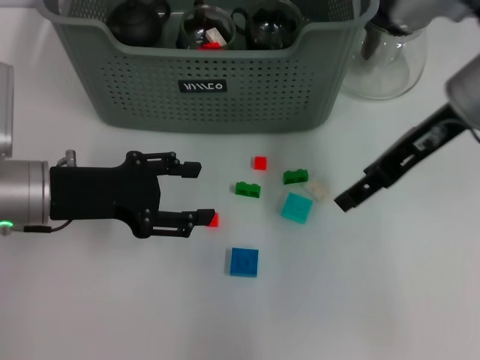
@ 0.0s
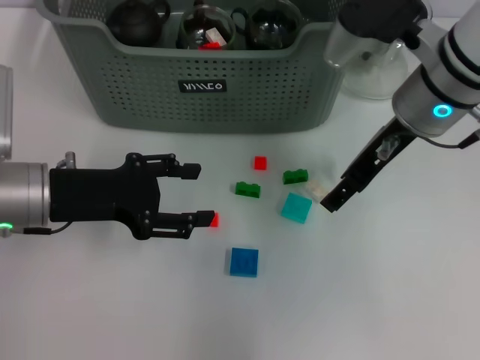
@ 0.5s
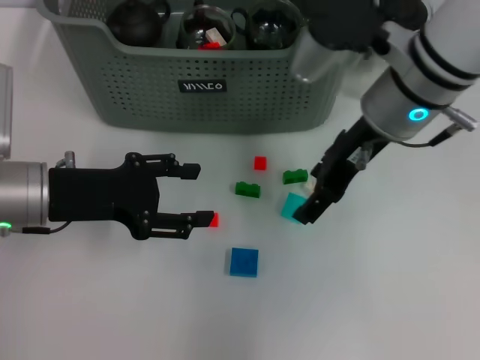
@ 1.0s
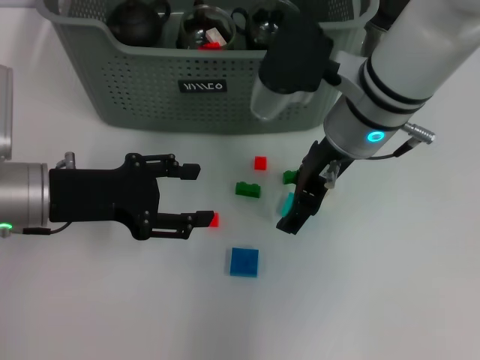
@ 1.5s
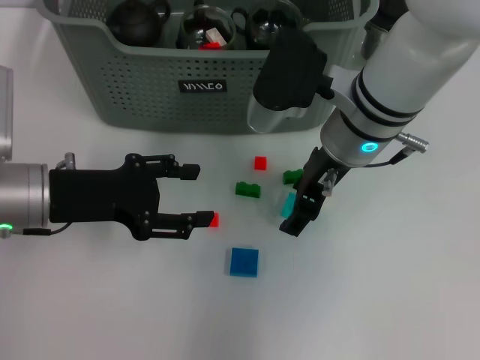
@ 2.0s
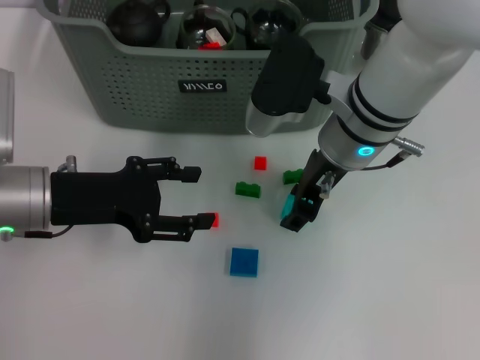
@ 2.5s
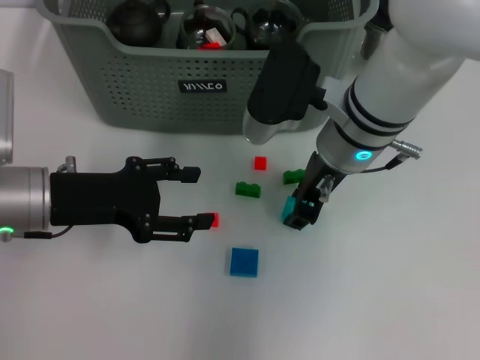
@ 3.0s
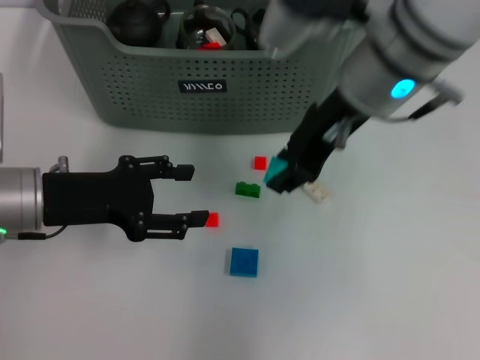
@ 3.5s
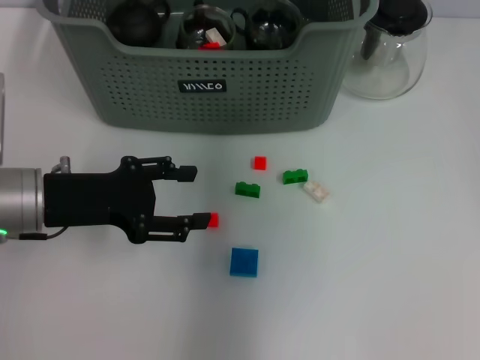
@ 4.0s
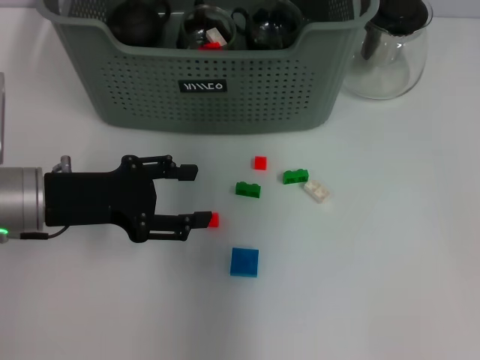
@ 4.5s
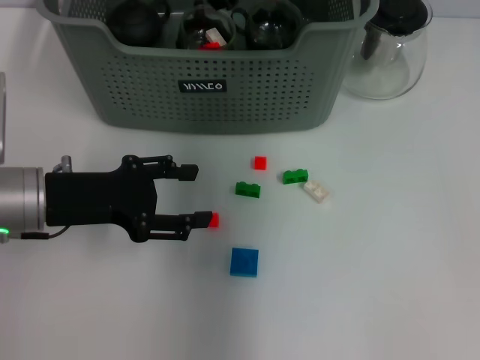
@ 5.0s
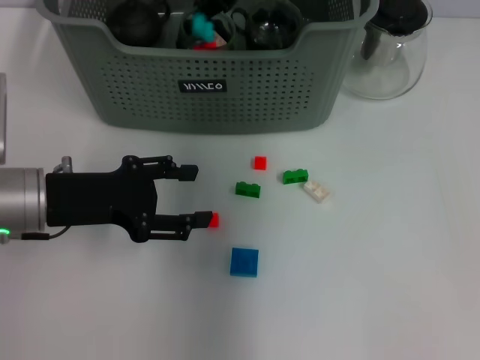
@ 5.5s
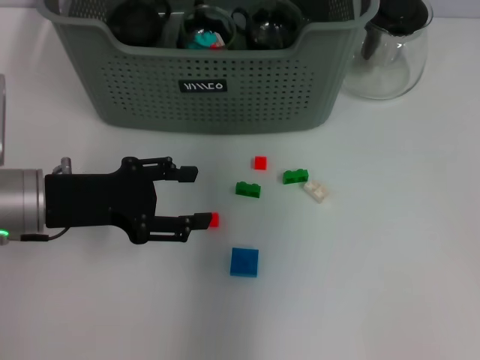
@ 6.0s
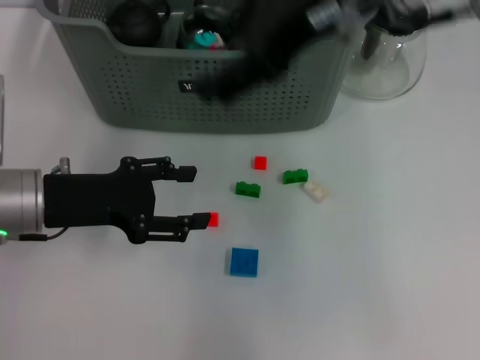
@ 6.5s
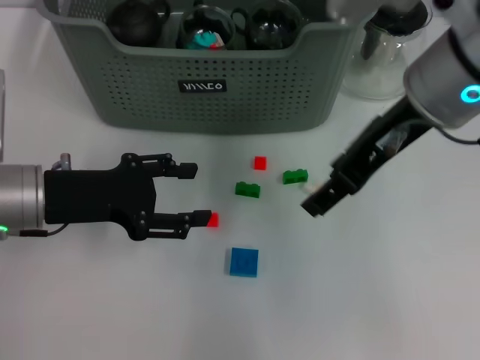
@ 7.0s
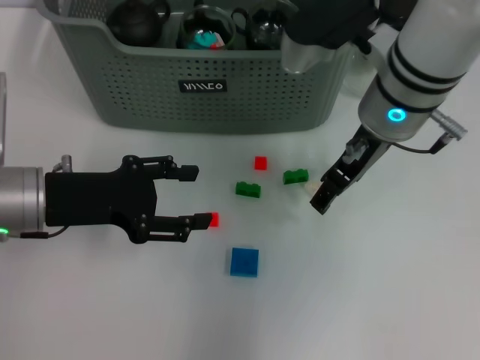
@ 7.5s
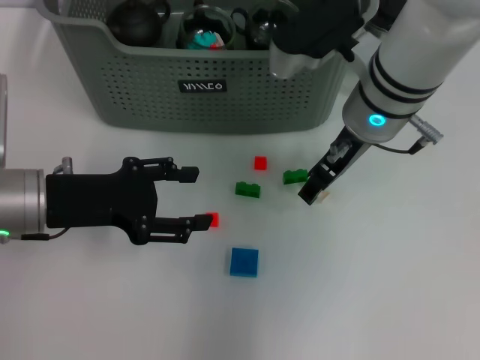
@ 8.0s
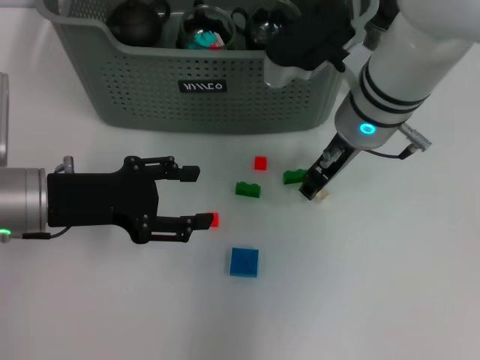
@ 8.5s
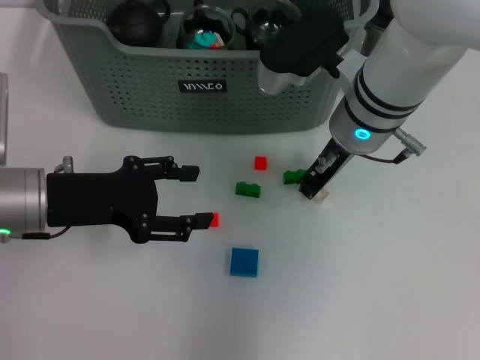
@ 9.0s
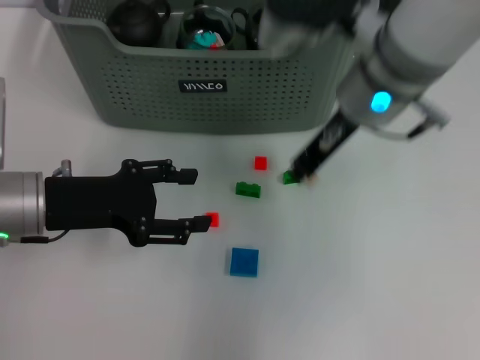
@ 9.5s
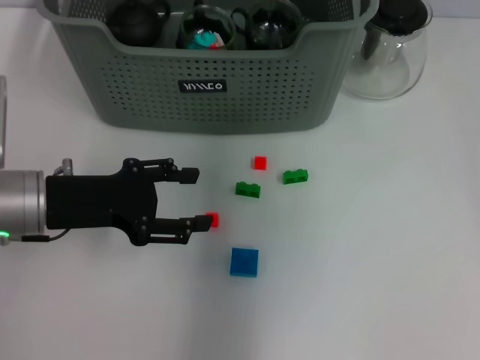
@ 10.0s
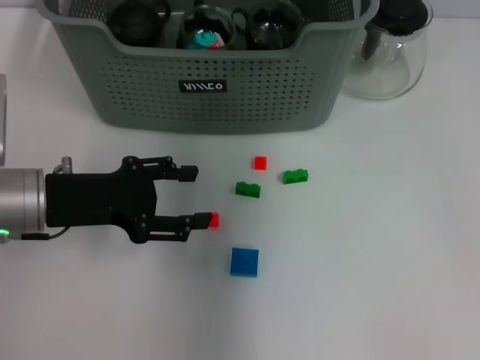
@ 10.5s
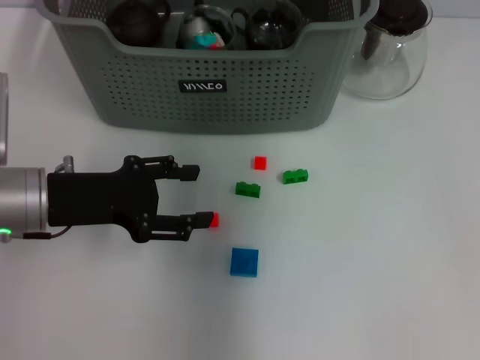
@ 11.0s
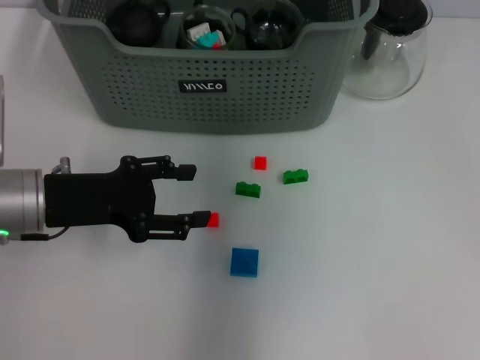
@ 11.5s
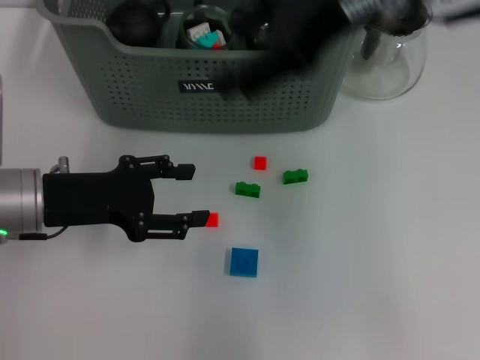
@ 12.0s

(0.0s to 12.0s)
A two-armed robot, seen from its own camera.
Task of the whole recording: pick up the teacup on the table and place it into the storage bin, pick up the block on the table and place it into the storage bin.
Step, 0.0s - 2.5s: Grasp the light blue block with right gripper.
Step, 3.5s - 5.5s: Place the light blue block in the storage box with right gripper.
Step, 6.0s - 9.0s: Grasp the white block with right gripper.
Step, 9.5s - 11.0s: Place the white block in the storage box with right gripper.
0.0s - 2.0s: The right gripper goes roughly 10 cm to the left and downward.
2.0s - 4.0s: The right gripper goes some 20 cm upward, and closes up.
6.0s - 8.0s: The right gripper travels downward, backward and to the right by roughly 15 cm.
8.0s - 10.0s: The right gripper moves upward, approximately 20 cm, and closes its fingers.
10.0s - 12.0s: The right gripper moves backward and to the right, approximately 10 cm, and opens its fingers.

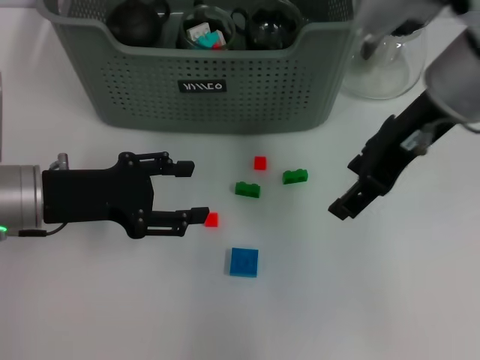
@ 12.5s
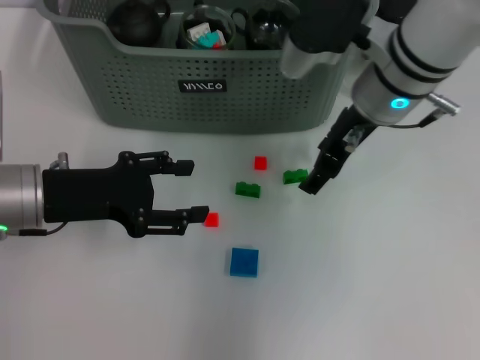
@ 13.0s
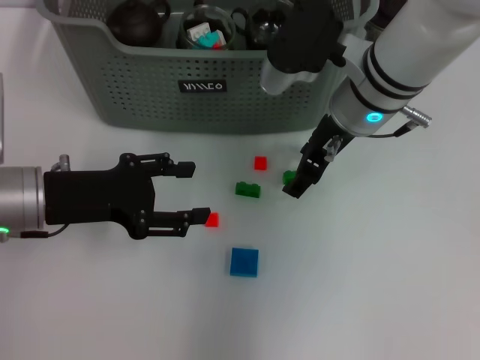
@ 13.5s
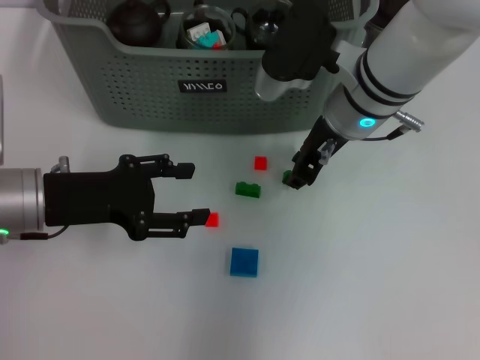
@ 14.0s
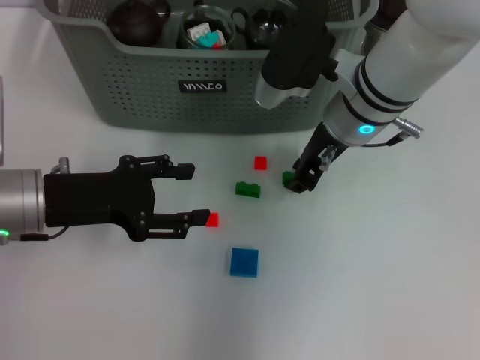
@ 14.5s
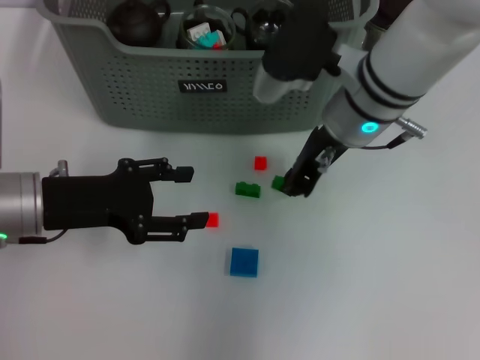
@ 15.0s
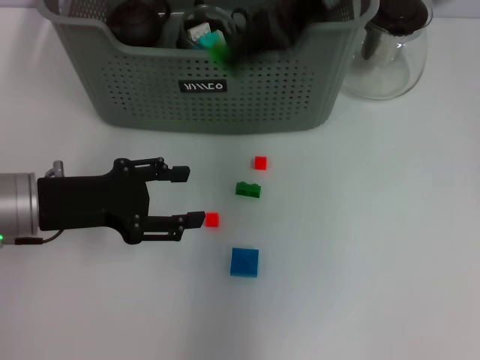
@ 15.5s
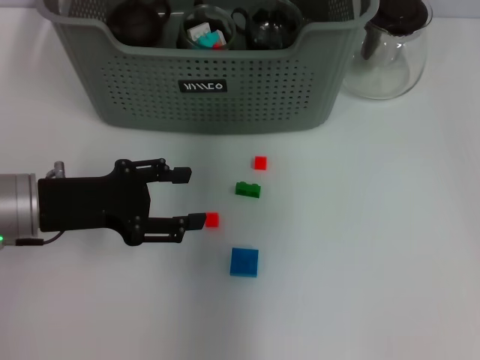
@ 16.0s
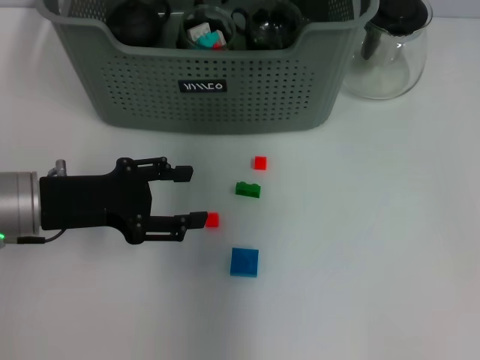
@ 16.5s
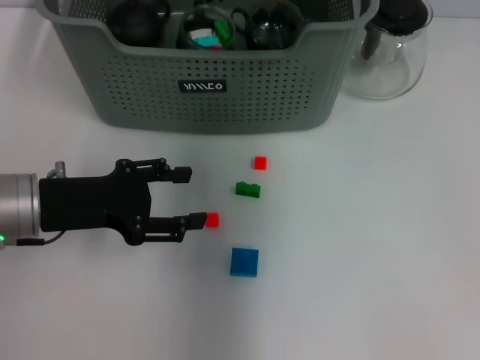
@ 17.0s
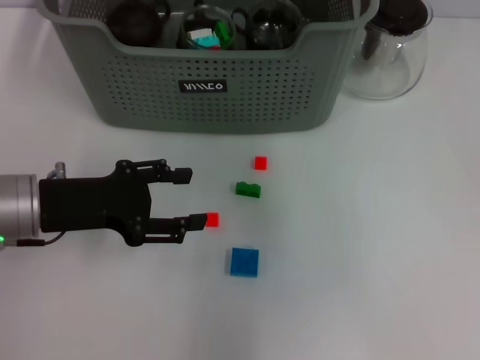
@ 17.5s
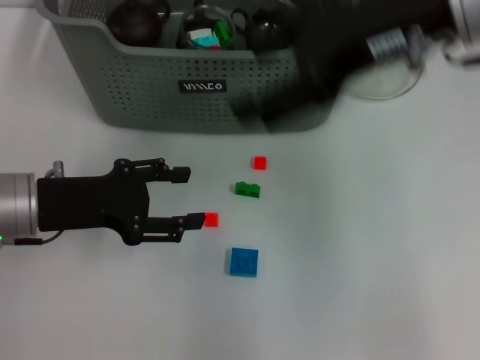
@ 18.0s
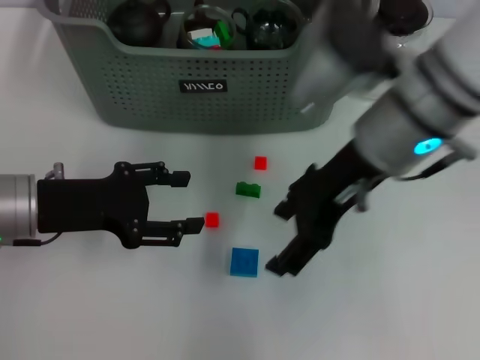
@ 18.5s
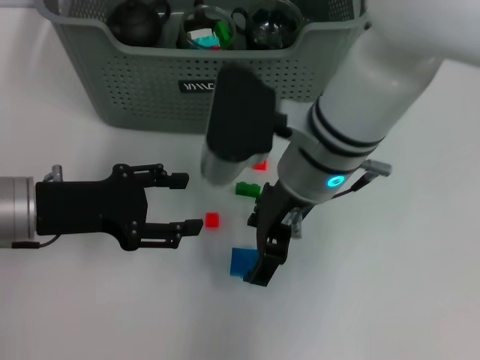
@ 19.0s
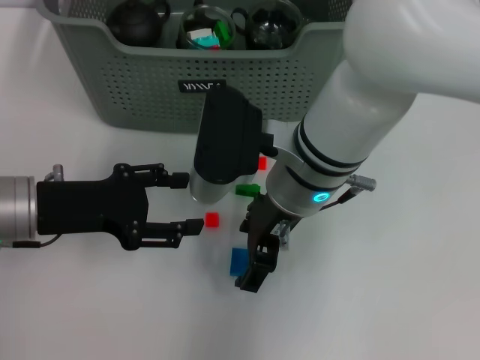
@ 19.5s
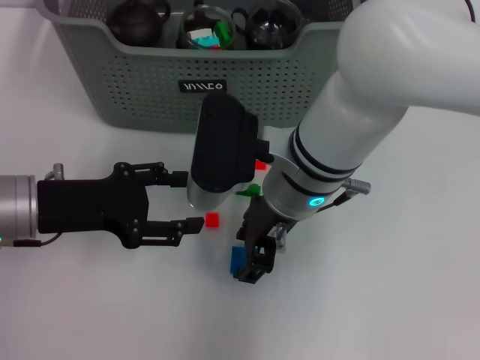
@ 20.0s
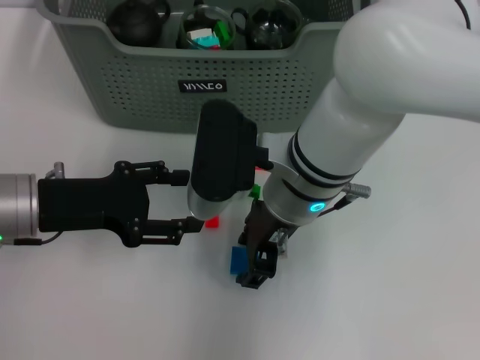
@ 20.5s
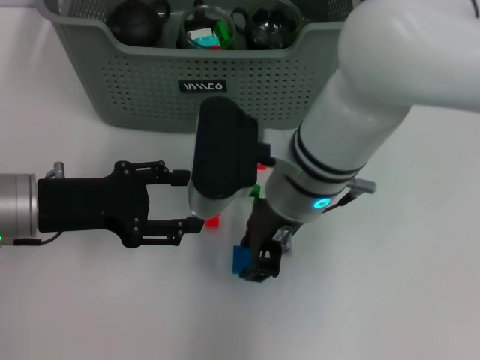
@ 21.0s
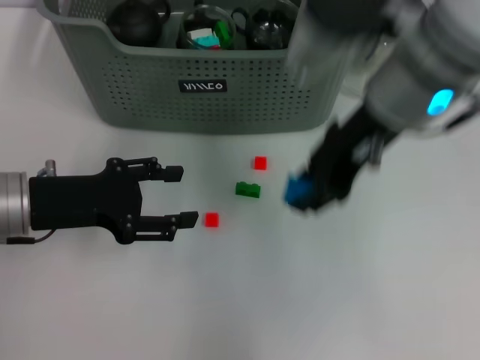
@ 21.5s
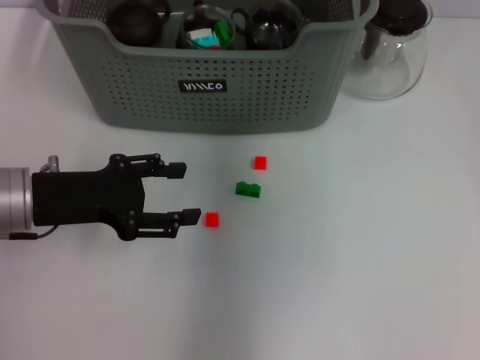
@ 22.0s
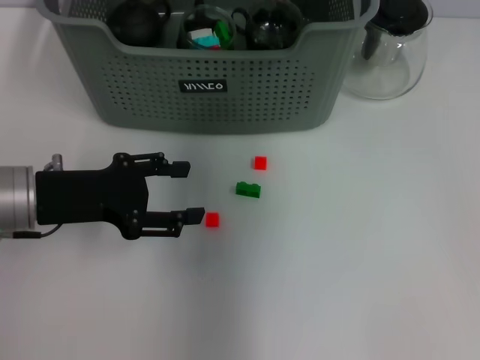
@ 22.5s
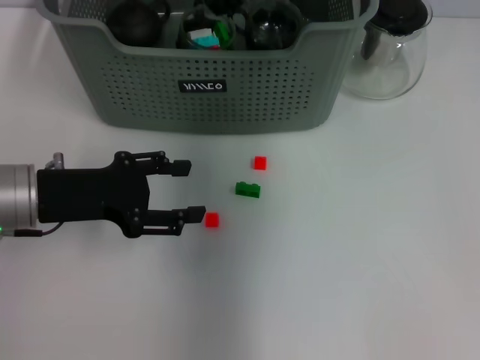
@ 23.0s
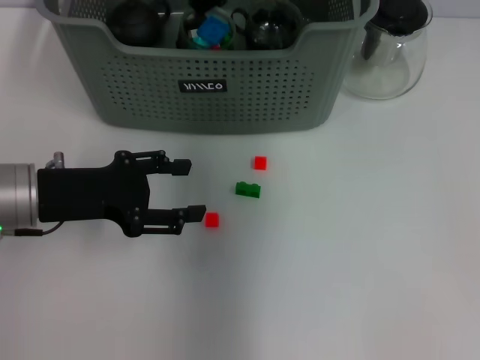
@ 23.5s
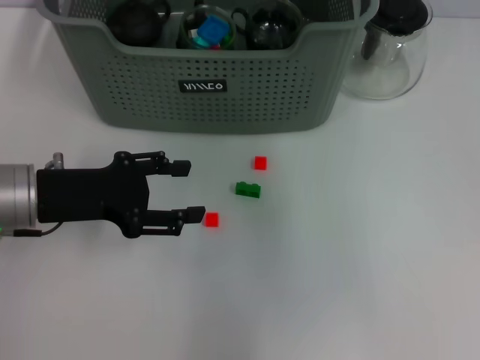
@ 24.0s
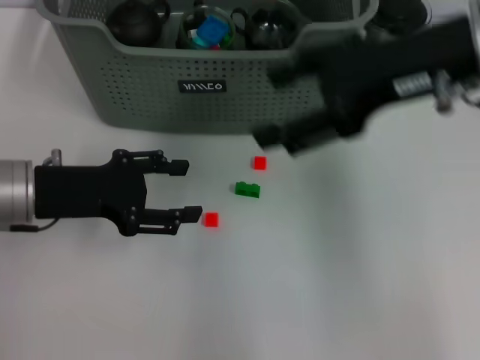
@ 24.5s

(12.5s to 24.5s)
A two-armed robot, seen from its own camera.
Task of the whole recording: pick up the teacup on the table and place it into the storage bin, pick up the block on the table and place it into the storage bin.
Step, 12.5s - 14.5s: Grasp the green block with right gripper.
Step, 15.0s - 16.5s: Place the green block in the storage box with right gripper.
Step, 17.0s - 20.5s: Grasp the dark blue block with right gripper.
Step, 21.0s - 23.0s: Place the dark blue block in the storage box with right gripper.
12.5s - 14.5s: The right gripper moves downward and to the left, about 10 cm, and closes.
14.5s - 16.5s: The right gripper goes some 15 cm upward, forward and to the left.
16.5s - 18.5s: The right gripper travels backward and to the right by roughly 15 cm, and opens up.
18.5s - 20.5s: The right gripper heads to the left and downward, covering approximately 10 cm, and closes its fingers.
20.5s - 22.5s: The right gripper travels forward and upward by roughly 20 cm.
22.5s - 24.5s: The right gripper moves backward and to the right, roughly 20 cm, and opens its fingers.

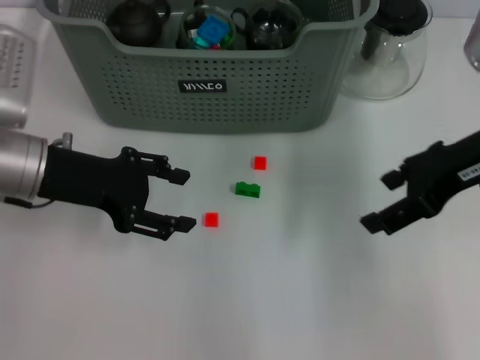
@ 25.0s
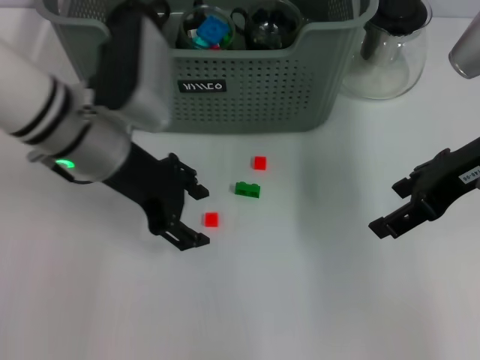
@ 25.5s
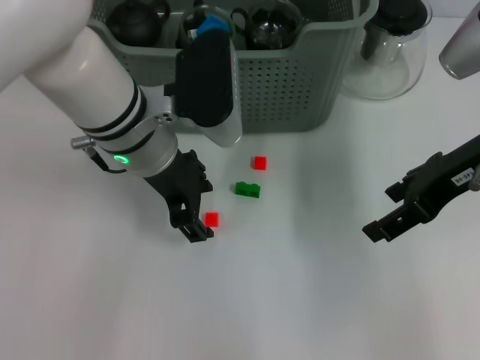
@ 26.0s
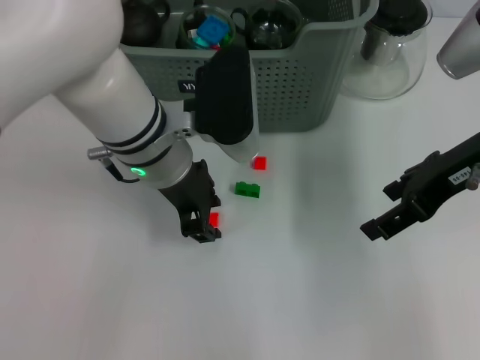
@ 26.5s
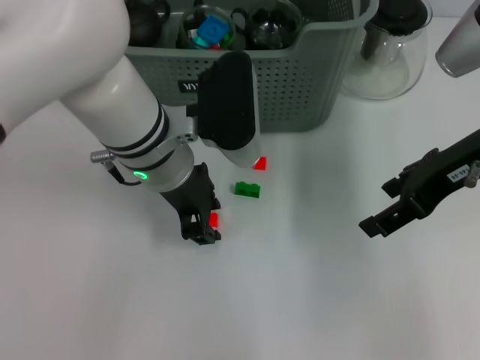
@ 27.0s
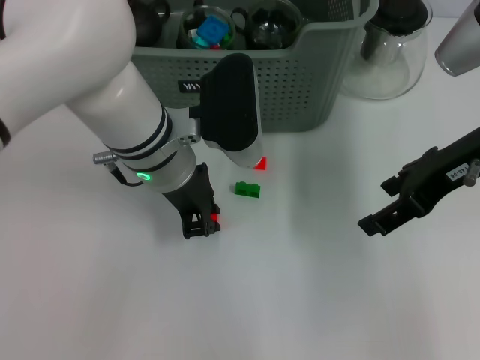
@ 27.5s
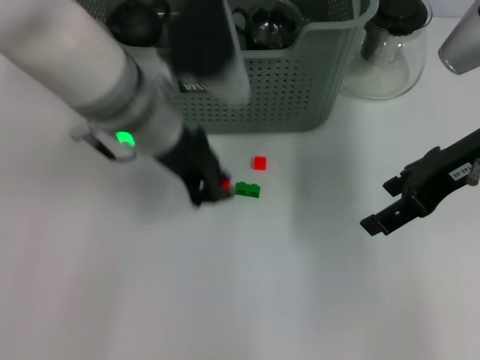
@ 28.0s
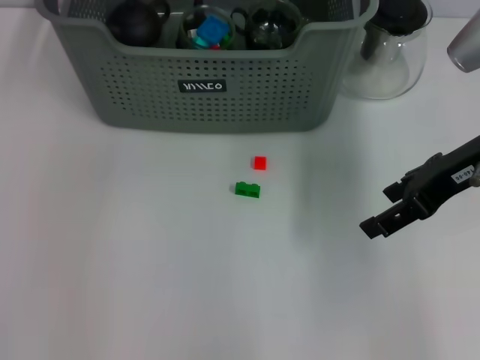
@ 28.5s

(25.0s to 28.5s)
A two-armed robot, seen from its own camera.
Task of the whole recording: pick up the teacup on the table and place it into the storage bin, pick up the block on the table and place it into the storage bin.
Step, 25.0s - 27.5s: Grasp the orange block with left gripper.
25.0s - 27.0s: The left gripper travels to the right by some 15 cm.
27.0s - 28.5s: The left gripper travels upward and to the left by about 20 cm, and closes its fingers.
